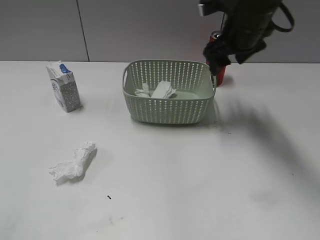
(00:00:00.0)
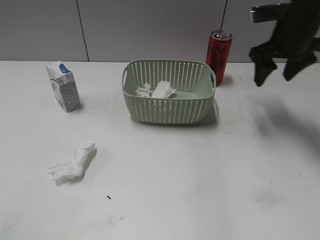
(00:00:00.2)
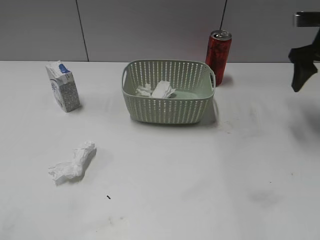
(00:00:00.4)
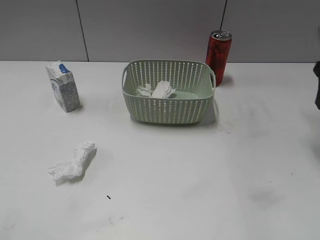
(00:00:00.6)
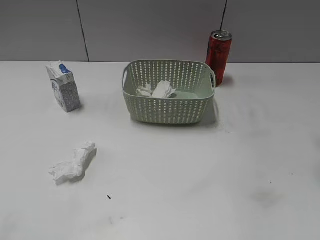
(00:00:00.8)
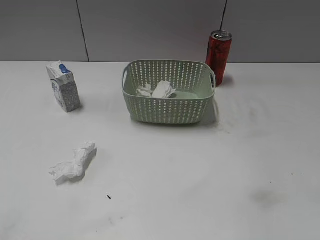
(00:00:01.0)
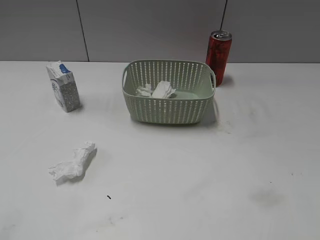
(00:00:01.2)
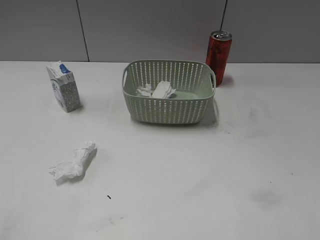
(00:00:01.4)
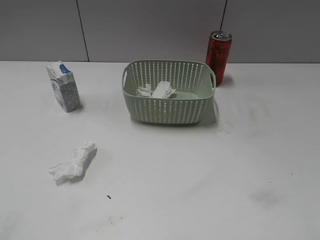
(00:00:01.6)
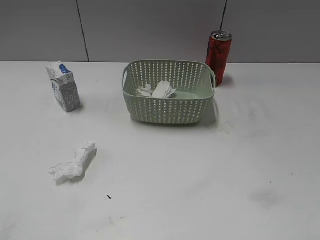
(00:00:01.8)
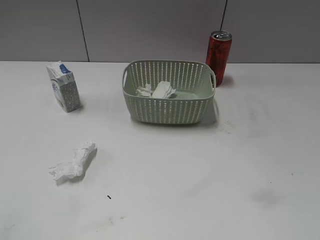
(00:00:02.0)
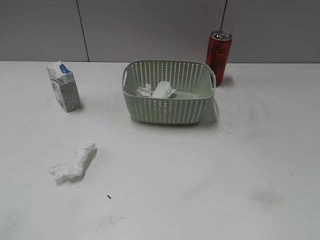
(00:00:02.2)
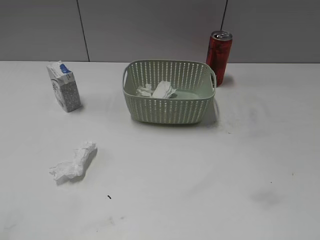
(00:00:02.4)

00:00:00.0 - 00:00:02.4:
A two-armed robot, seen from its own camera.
00:00:00.0 - 00:00:01.2: The right gripper shifts some 30 cm backward and to the right.

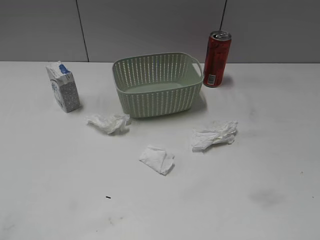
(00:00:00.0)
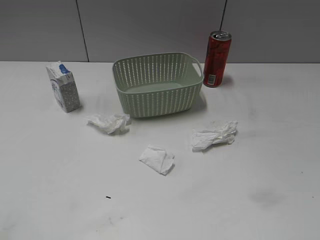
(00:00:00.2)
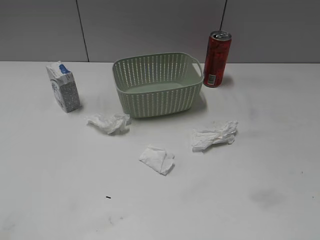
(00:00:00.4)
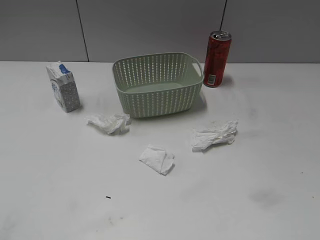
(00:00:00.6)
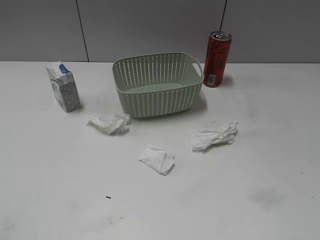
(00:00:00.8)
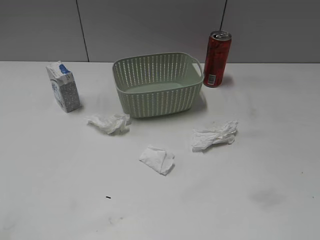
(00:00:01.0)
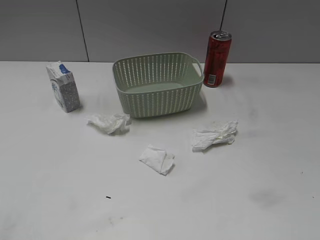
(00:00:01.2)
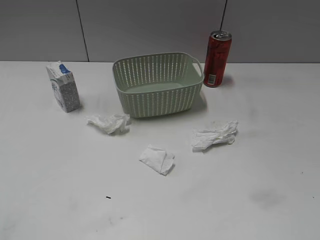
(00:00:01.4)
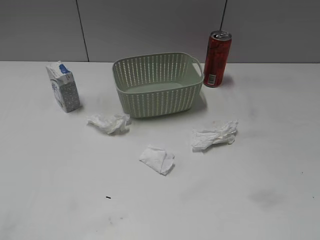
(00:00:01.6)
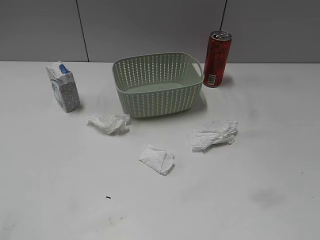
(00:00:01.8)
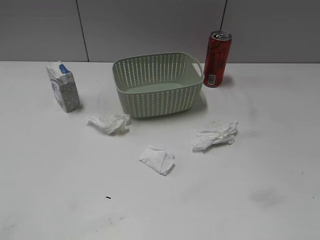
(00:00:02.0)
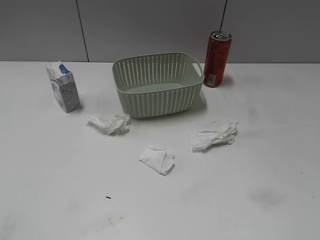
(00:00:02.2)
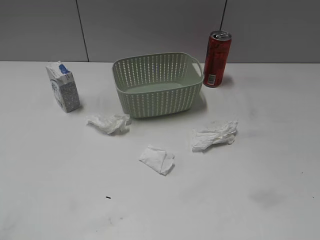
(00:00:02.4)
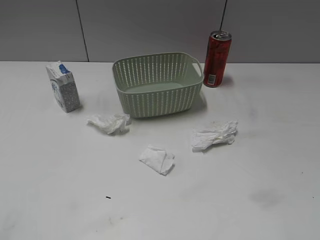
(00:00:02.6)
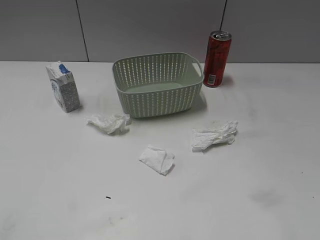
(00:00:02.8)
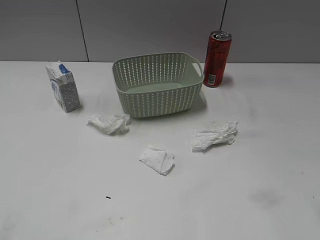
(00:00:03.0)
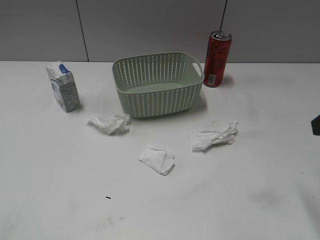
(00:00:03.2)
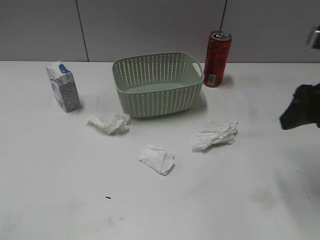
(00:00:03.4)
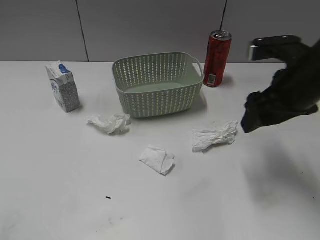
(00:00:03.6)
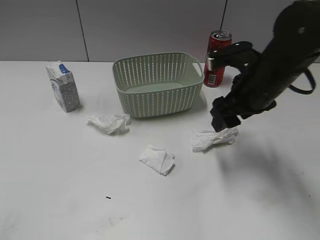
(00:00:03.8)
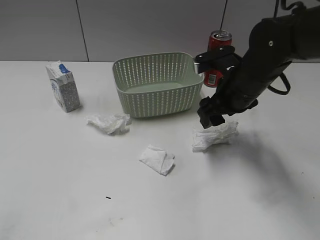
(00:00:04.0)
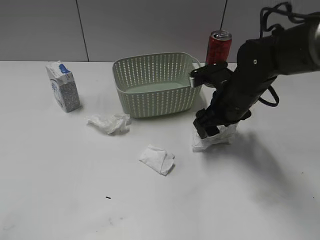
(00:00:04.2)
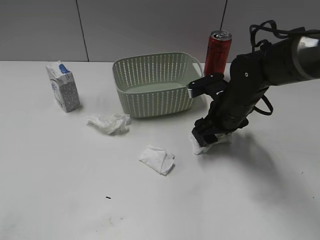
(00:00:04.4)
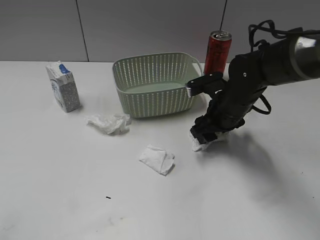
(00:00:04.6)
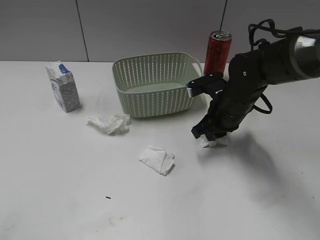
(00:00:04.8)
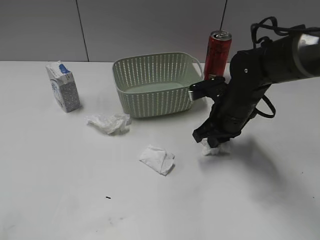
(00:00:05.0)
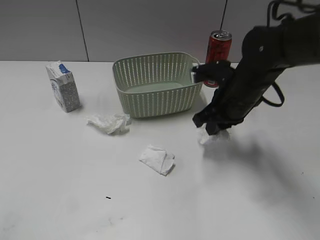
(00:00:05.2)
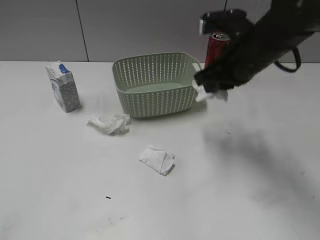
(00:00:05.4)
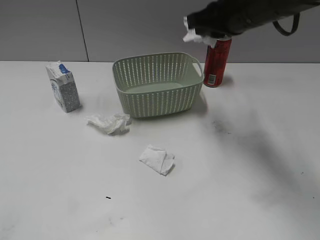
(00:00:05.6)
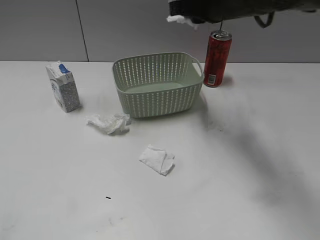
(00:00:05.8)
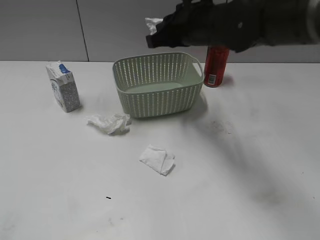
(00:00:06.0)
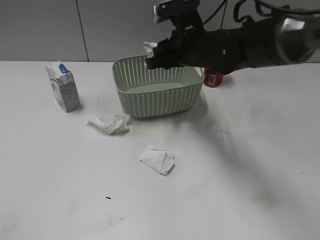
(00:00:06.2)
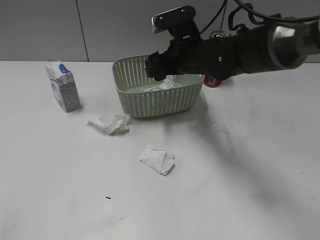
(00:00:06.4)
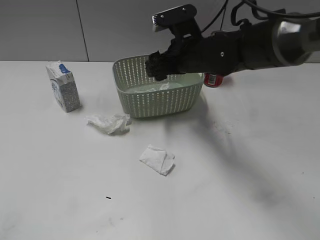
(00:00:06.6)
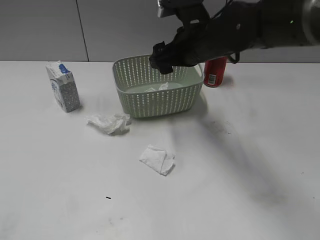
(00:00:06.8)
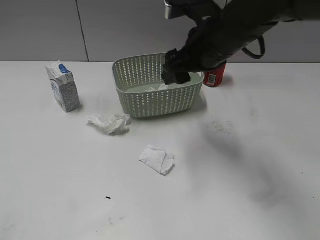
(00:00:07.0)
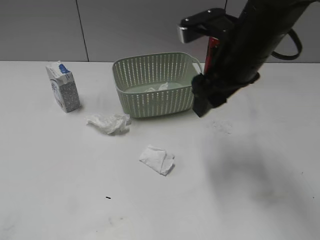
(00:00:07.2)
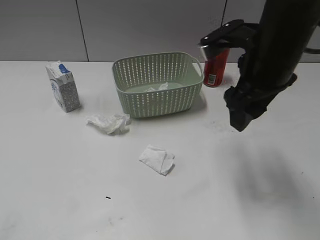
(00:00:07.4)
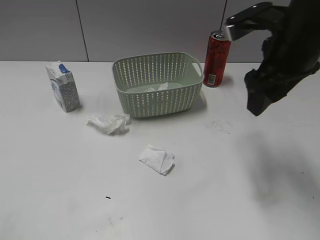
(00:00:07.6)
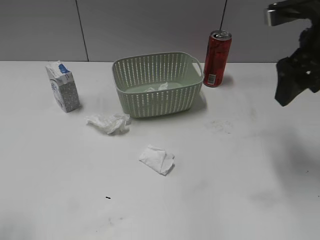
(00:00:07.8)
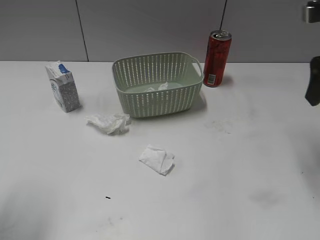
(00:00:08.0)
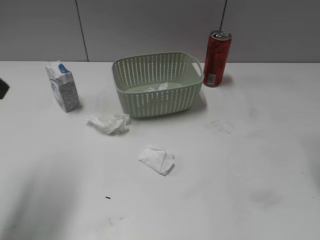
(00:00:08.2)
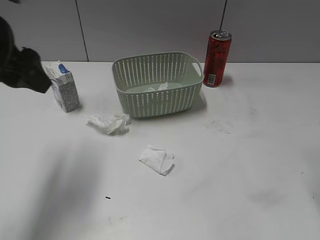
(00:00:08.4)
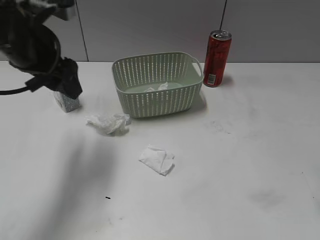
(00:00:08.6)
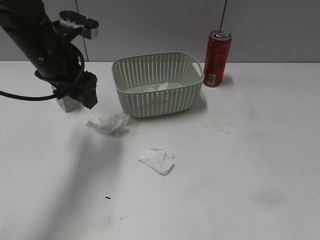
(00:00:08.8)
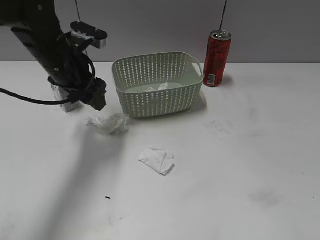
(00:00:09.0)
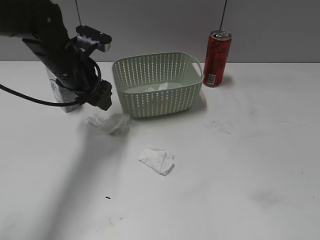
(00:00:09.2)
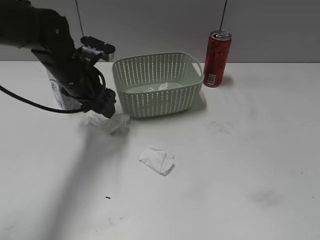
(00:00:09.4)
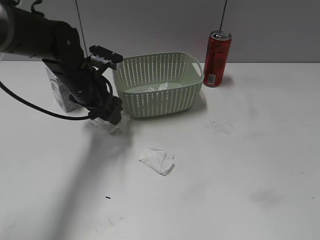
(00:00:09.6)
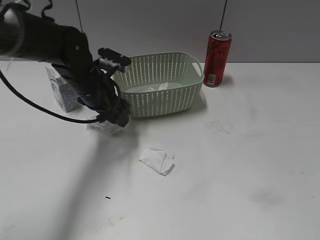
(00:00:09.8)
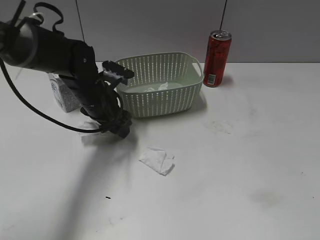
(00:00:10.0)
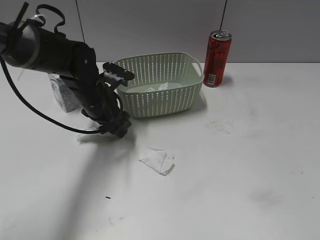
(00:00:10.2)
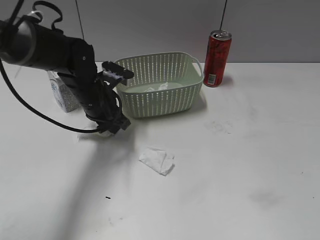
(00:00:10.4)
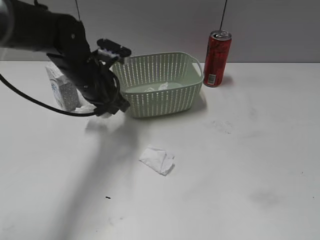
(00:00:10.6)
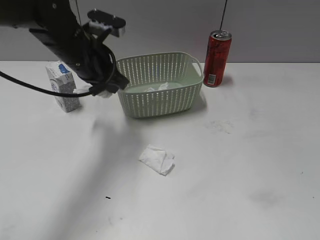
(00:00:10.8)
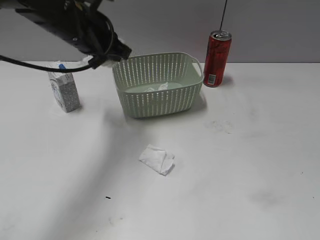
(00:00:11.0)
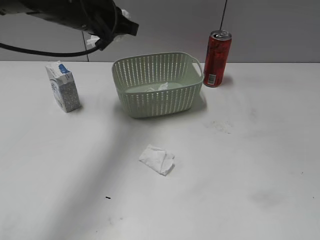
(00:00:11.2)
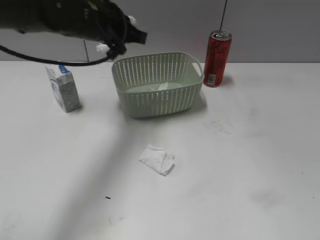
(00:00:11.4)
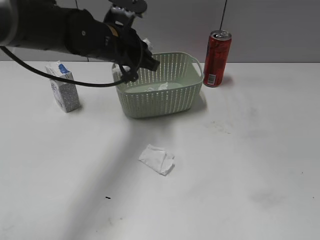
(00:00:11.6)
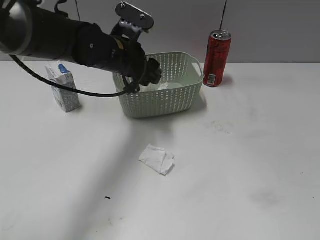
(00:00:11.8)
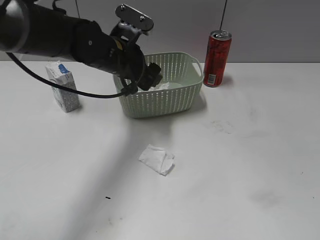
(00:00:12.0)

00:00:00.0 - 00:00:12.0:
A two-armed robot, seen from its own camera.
Step, 00:00:03.2 - 00:00:04.8: Grasp the waste paper with right gripper.
Step, 00:00:05.0 - 00:00:06.6: Place the waste paper in the basket with right gripper.
Step, 00:00:06.8 - 00:00:10.6: Grasp the waste paper with left gripper.
00:00:03.0 - 00:00:04.4: The right gripper is displaced forward, downward and to the left by some 30 cm.
00:00:04.4 - 00:00:06.0: The right gripper shifts roughly 15 cm upward and to the left, and closes up.
00:00:06.0 - 00:00:07.6: The left gripper shifts some 5 cm forward, while the right gripper travels to the right and backward by about 15 cm, and opens.
00:00:07.6 - 00:00:09.0: The right gripper heads backward and to the right, covering about 20 cm. Meanwhile the left gripper goes roughly 35 cm forward and to the right.
00:00:09.0 - 00:00:10.4: The right gripper heads backward, covering about 15 cm. The left gripper is displaced downward by some 10 cm, and closes its fingers.
00:00:10.4 - 00:00:12.0: The left gripper travels upward by some 5 cm, and opens its fingers.

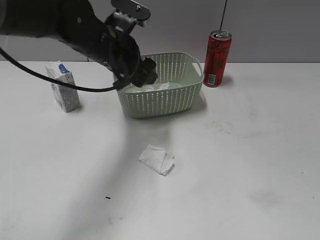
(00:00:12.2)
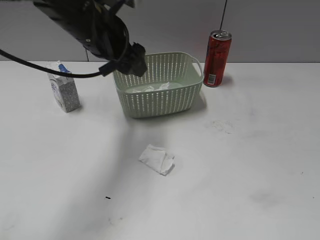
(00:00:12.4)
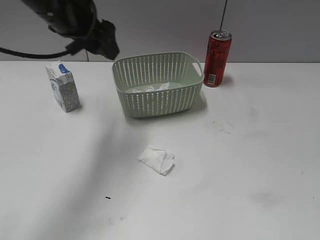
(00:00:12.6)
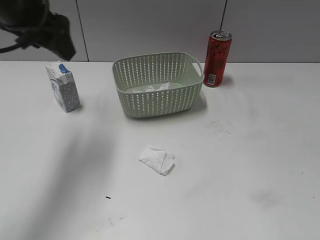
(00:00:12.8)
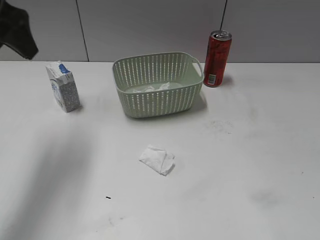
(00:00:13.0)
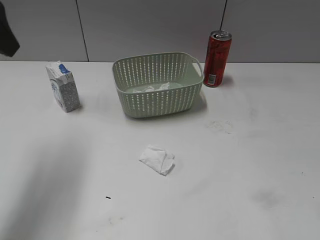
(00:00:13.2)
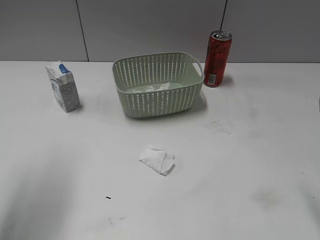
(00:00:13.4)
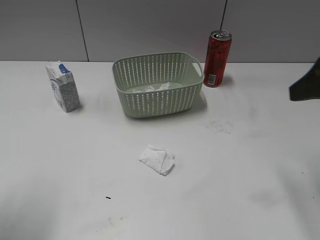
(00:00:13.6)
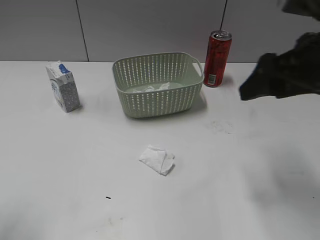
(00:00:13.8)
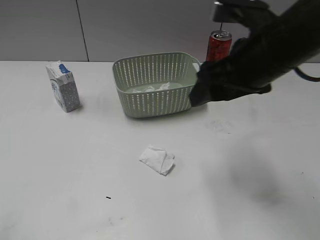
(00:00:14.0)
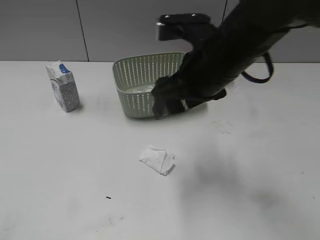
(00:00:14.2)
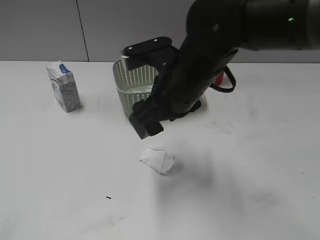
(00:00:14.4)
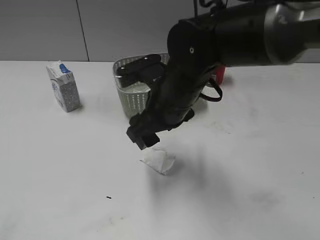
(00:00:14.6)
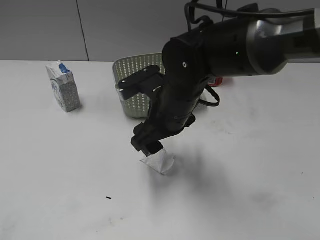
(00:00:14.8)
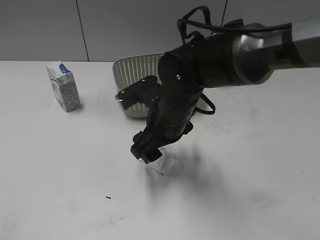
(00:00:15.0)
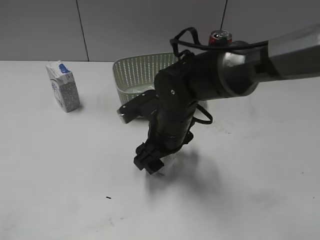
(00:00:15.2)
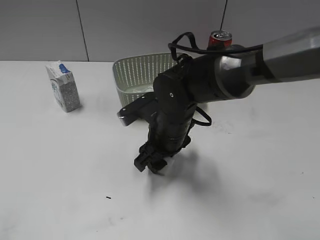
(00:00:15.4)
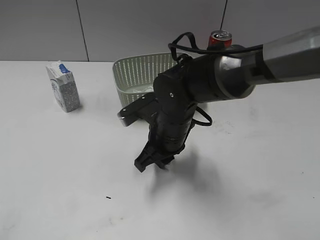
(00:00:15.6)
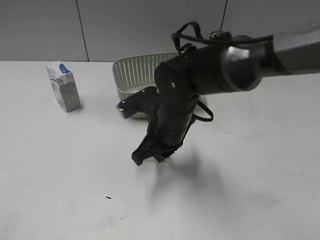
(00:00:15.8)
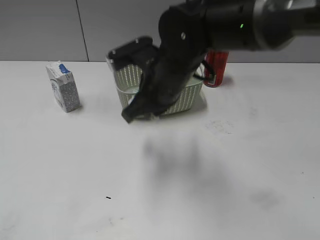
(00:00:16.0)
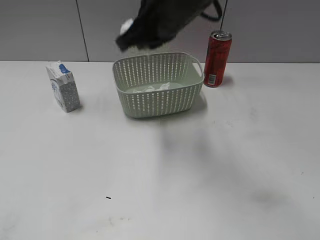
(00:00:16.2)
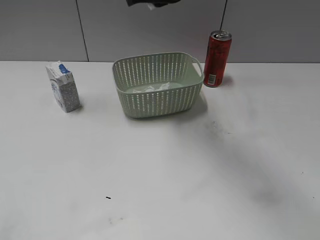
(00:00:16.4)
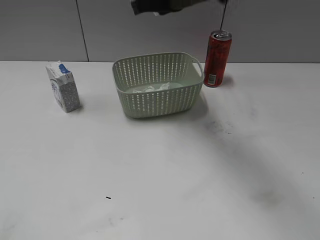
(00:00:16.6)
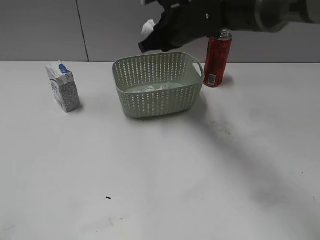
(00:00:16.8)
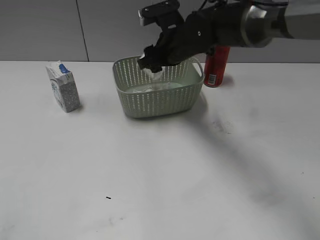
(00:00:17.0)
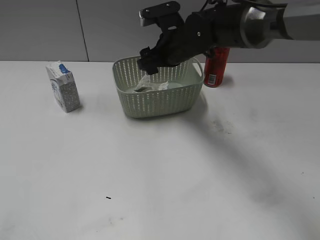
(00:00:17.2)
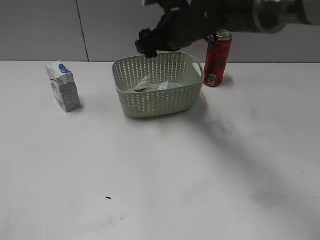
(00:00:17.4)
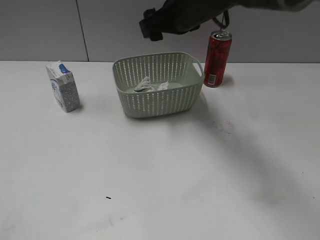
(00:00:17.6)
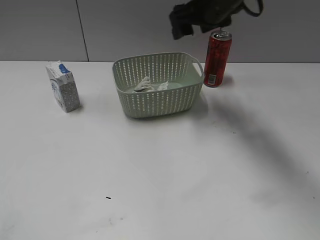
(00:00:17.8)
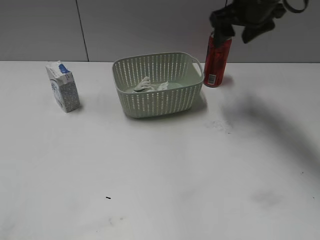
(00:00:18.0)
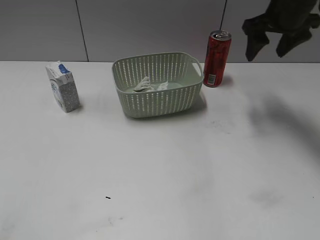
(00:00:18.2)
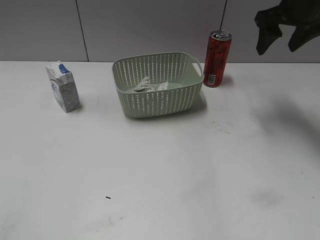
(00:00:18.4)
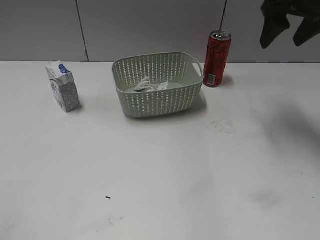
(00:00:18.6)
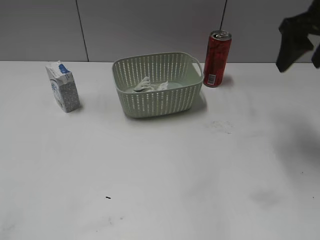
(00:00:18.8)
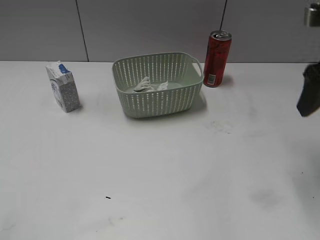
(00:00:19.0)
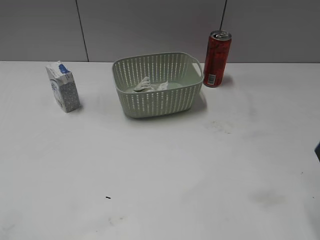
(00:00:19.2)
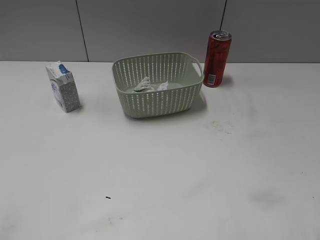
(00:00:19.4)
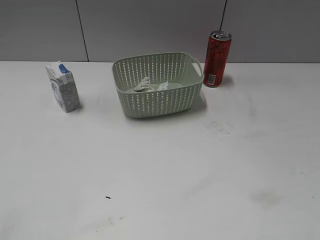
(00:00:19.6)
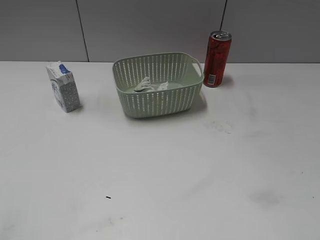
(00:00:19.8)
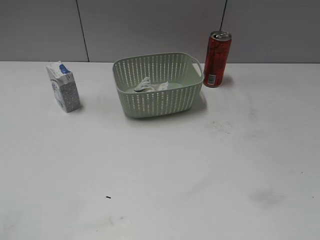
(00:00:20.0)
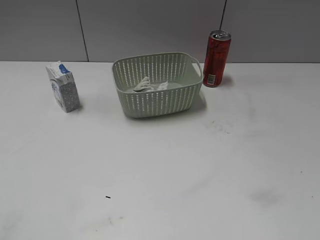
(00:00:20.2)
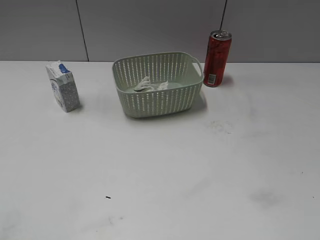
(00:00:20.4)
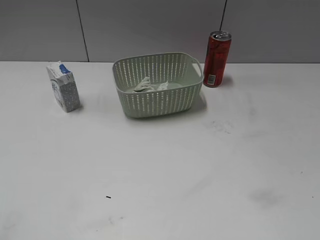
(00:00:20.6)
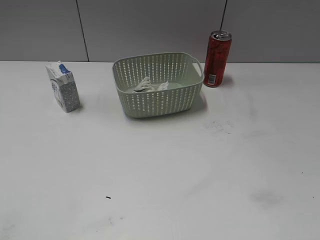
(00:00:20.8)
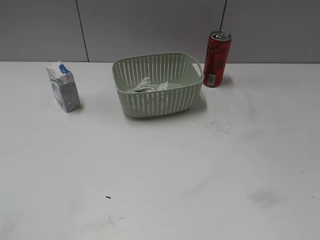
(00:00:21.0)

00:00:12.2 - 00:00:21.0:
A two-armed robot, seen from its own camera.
Step, 00:00:12.2 - 00:00:15.6: Grasp the waste paper with right gripper.
Step, 00:00:15.8 - 00:00:17.6: Place the waste paper in the basket with right gripper.
00:00:12.2 - 00:00:13.6: The right gripper moves forward, some 20 cm. Meanwhile the left gripper goes about 30 cm to the left, backward and upward.
00:00:13.6 - 00:00:15.2: The right gripper moves to the left and downward, approximately 30 cm. The left gripper is displaced backward by roughly 20 cm.
00:00:15.2 - 00:00:16.6: The right gripper shifts some 20 cm upward and forward, and closes.
00:00:16.6 - 00:00:18.0: The right gripper shifts approximately 10 cm to the right, and opens.
00:00:18.0 - 00:00:19.6: The right gripper is displaced backward by roughly 35 cm.
